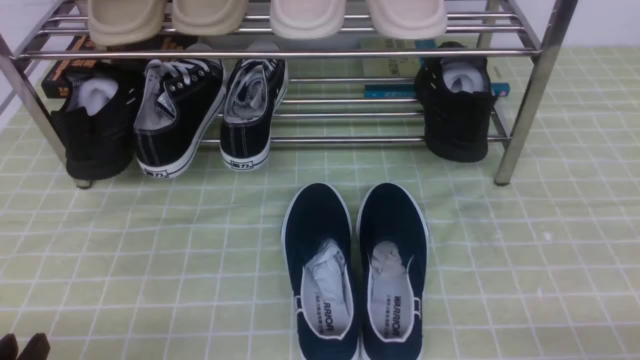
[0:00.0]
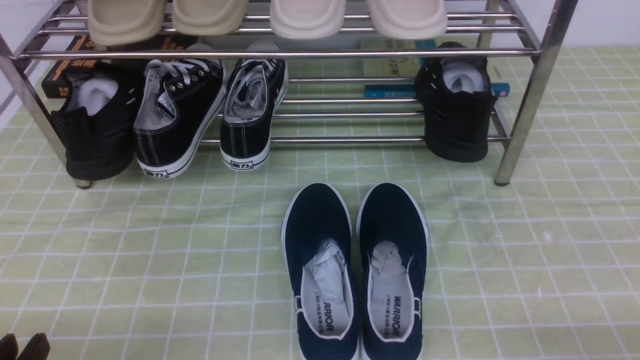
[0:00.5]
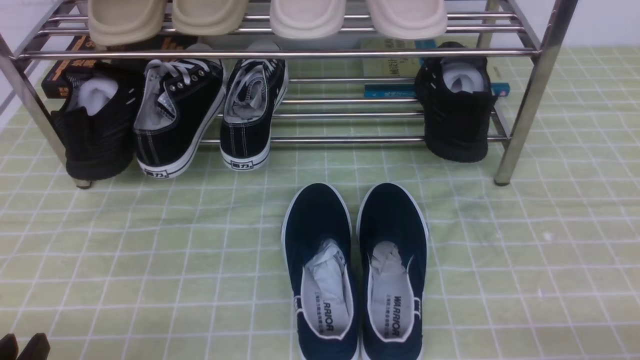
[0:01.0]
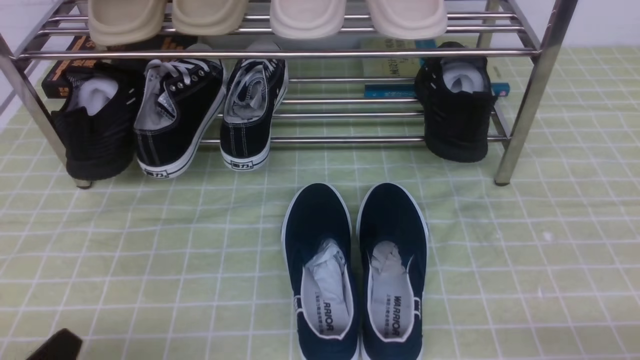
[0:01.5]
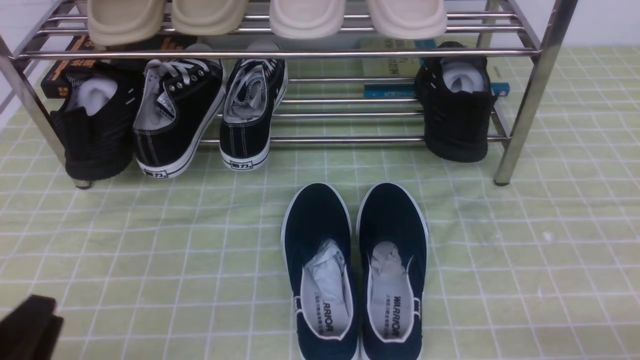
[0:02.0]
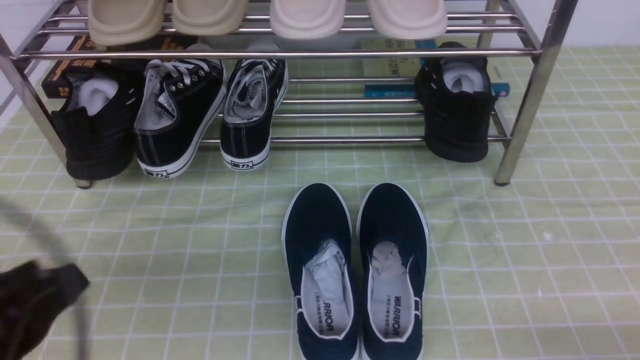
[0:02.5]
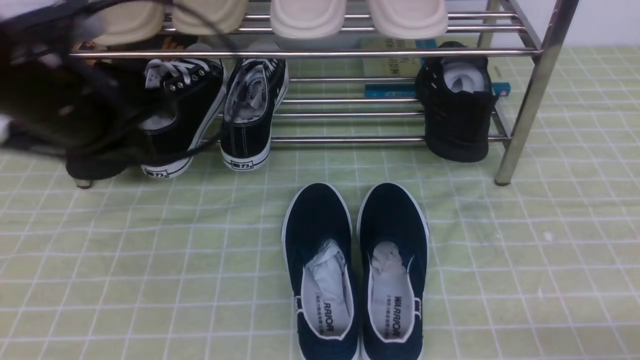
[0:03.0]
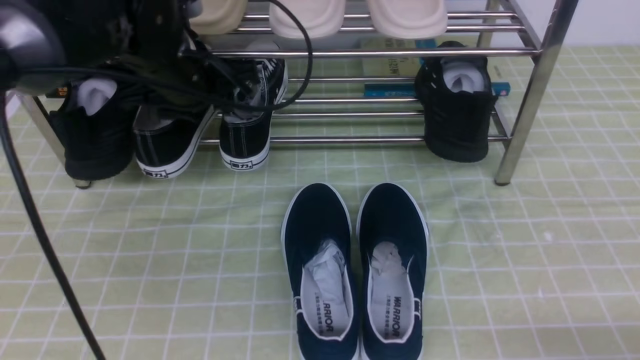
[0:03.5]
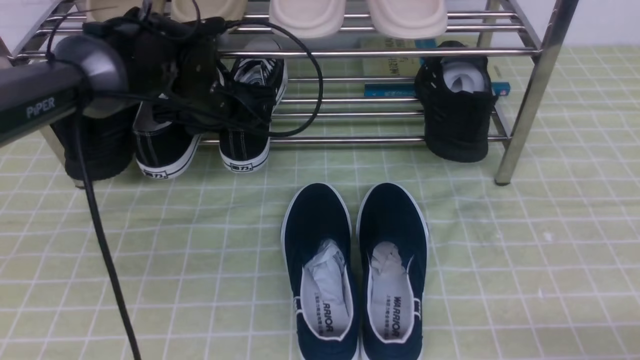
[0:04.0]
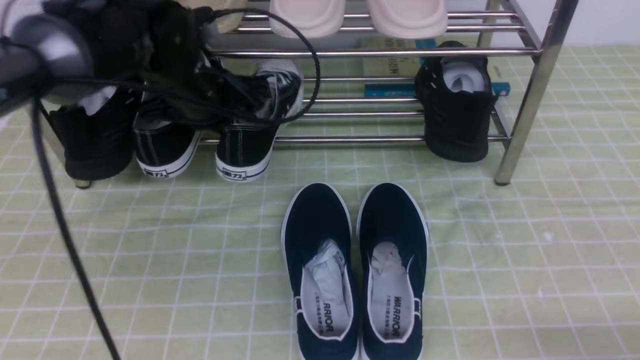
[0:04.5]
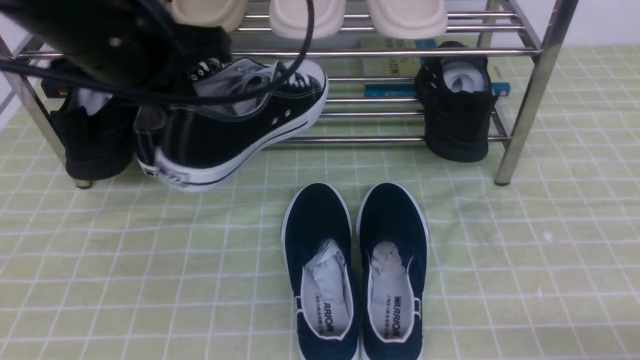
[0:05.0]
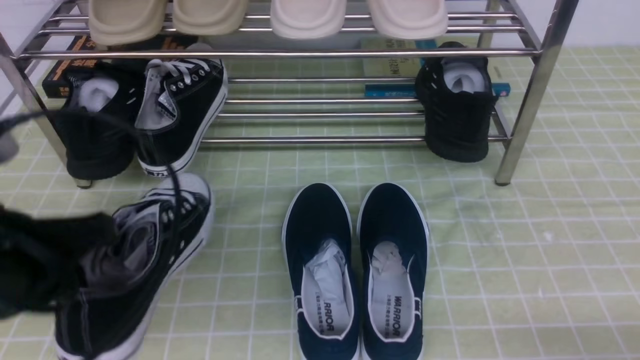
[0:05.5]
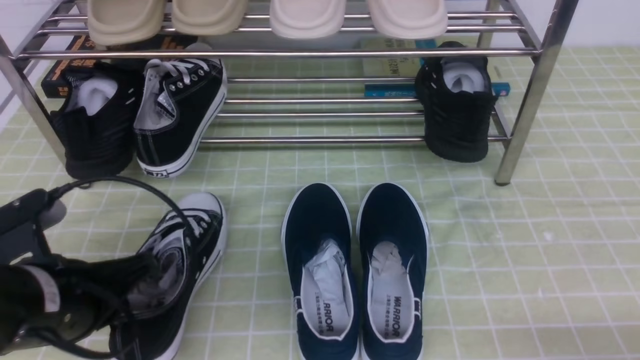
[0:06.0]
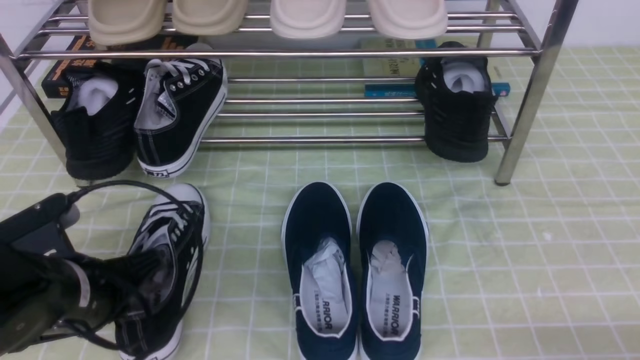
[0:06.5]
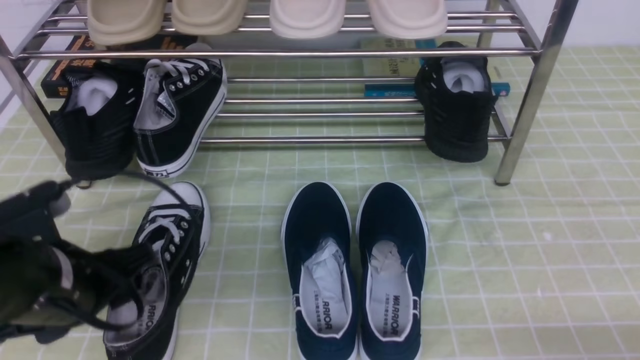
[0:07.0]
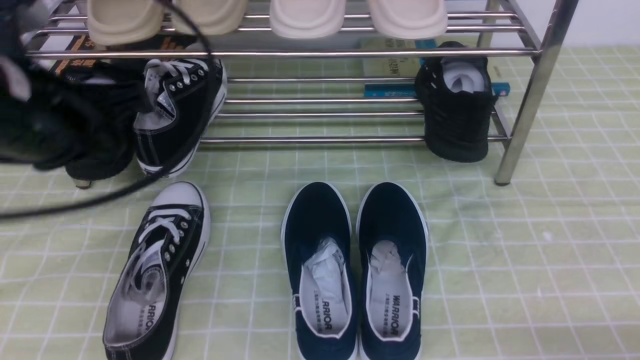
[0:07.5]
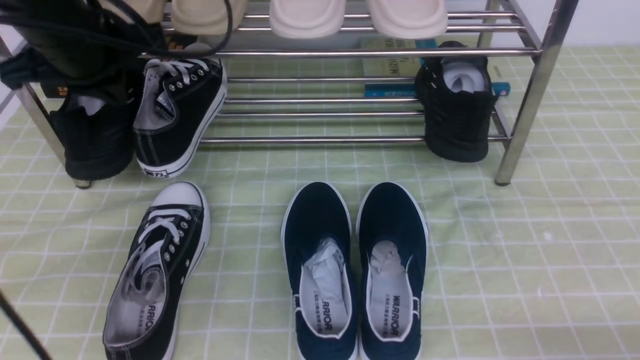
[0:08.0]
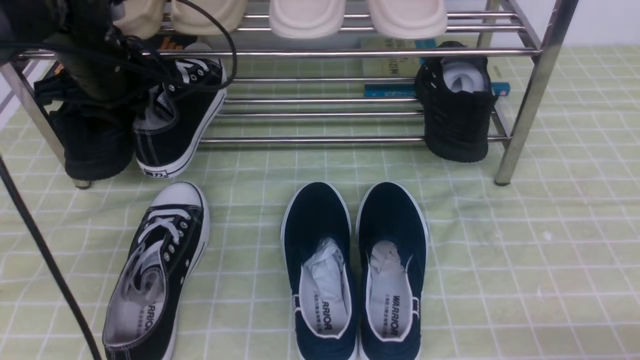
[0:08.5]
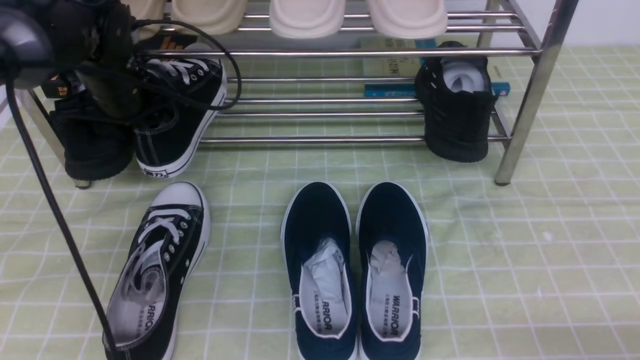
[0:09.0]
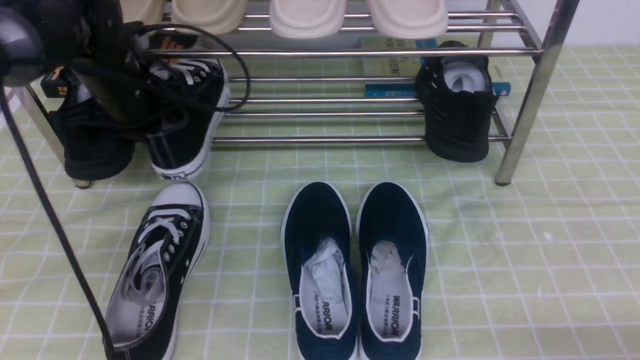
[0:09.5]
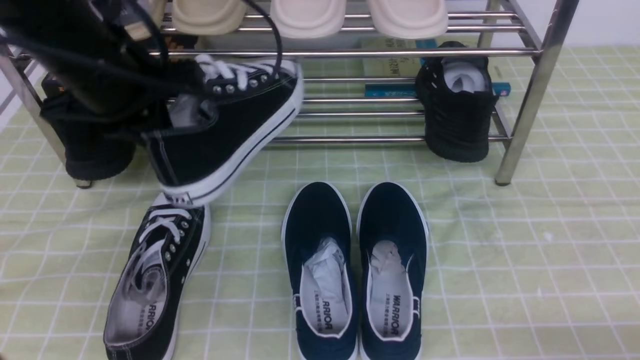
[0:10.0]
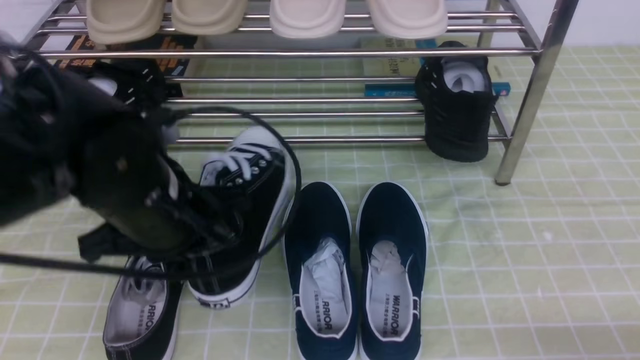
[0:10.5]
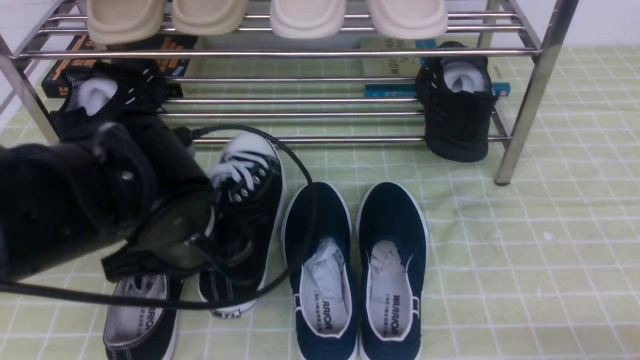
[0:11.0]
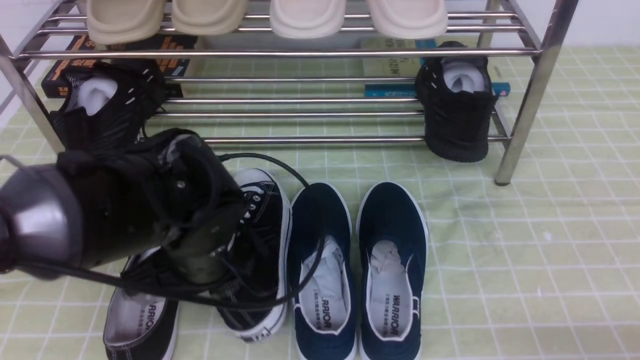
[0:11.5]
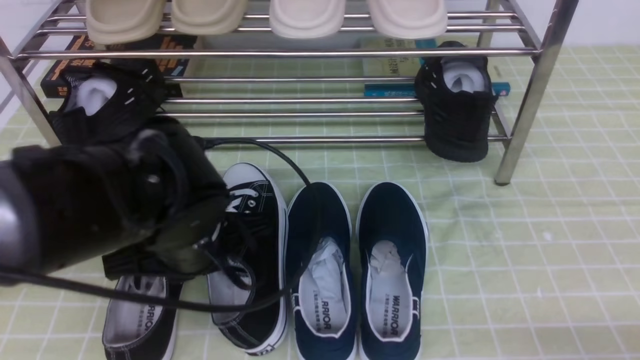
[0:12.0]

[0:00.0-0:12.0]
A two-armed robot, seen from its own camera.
Step, 0:00.0 to 0:04.0: use the left arm to clamp a shoe on the left side of the shoe rack.
Step, 0:04.5 to 0:07.0: Use your left arm to remove the clamped shoe from the shoe rack and put it down.
Step, 0:07.5 to 0:09.0: use the left arm to clamp a shoe on the left side of the shoe rack.
0:02.0 to 0:04.0: The left gripper moves forward, roughly 35 cm, and closes and opens again.
0:04.0 to 0:06.0: The left gripper moves backward, approximately 25 cm, and closes its fingers.
0:06.0 to 0:08.0: The left gripper moves forward and upward, roughly 20 cm, and opens, then closes again.
0:08.0 to 0:10.0: The left gripper opens, then closes again.
0:10.0 to 0:12.0: The left gripper shifts about 15 cm downward, backward and to the right.

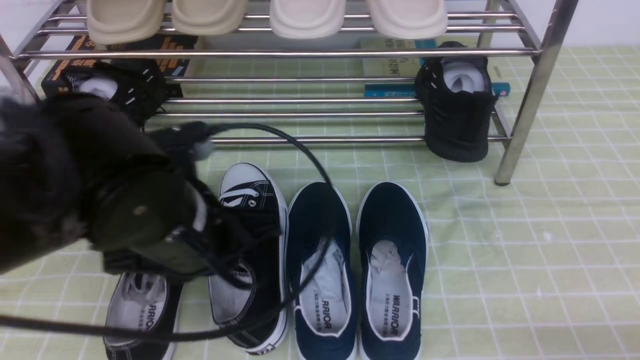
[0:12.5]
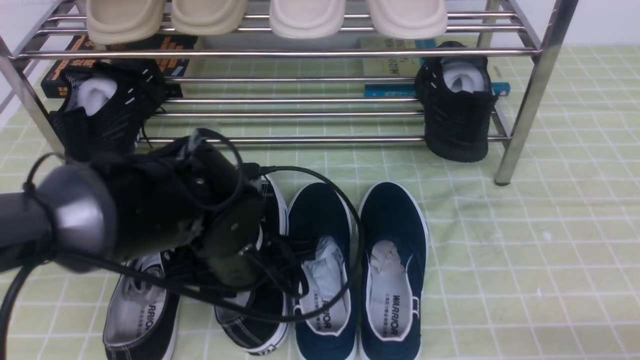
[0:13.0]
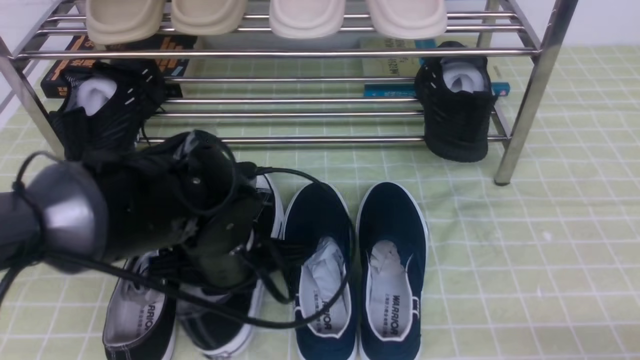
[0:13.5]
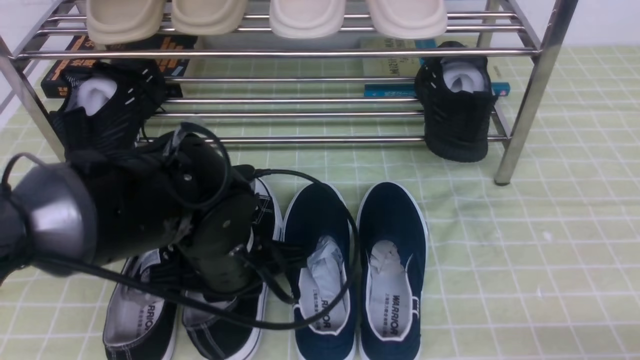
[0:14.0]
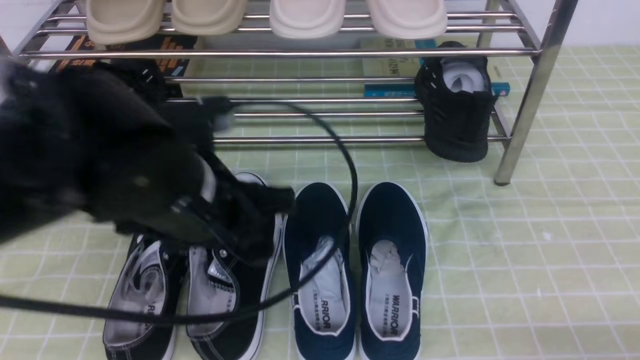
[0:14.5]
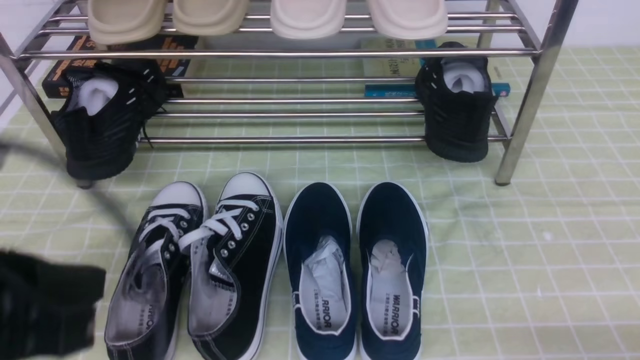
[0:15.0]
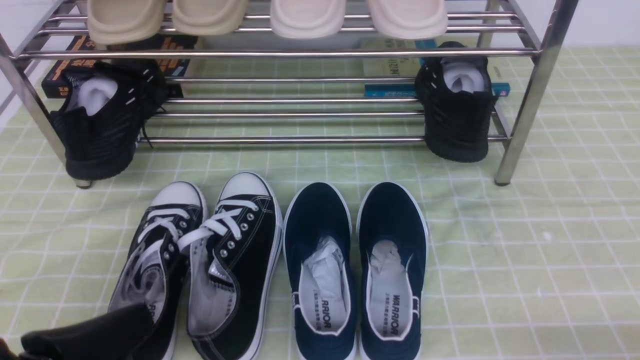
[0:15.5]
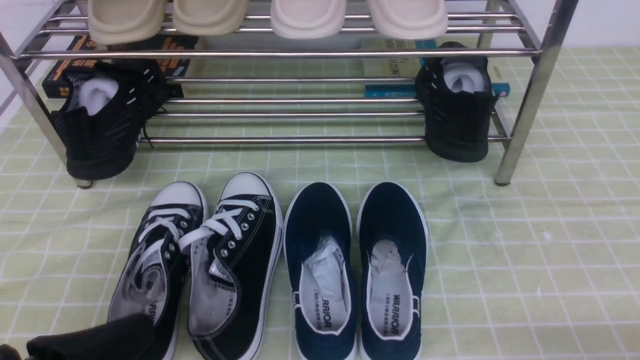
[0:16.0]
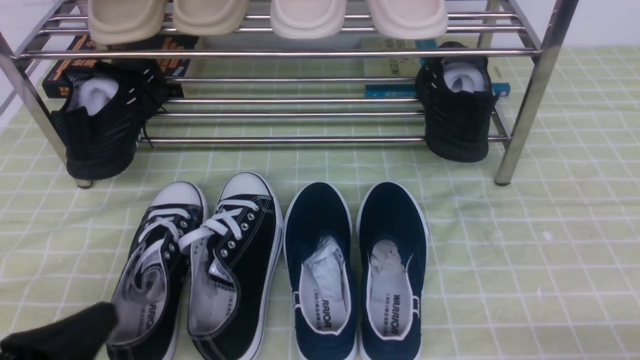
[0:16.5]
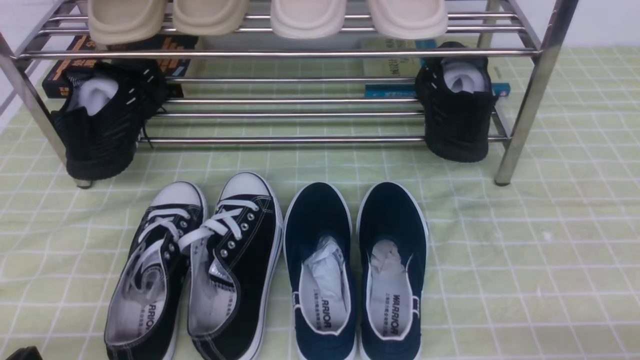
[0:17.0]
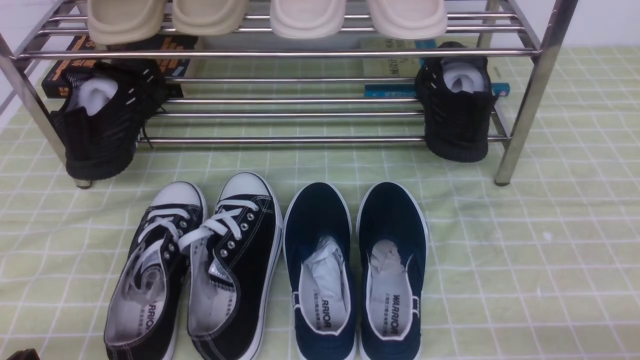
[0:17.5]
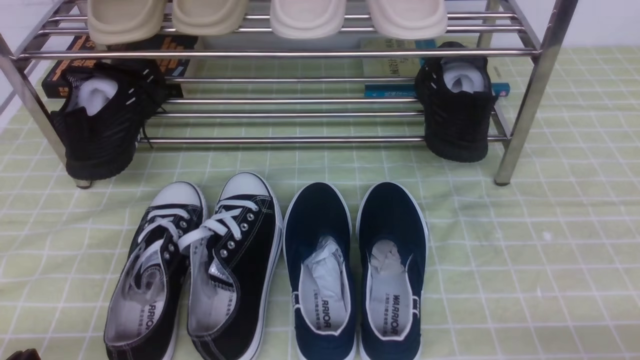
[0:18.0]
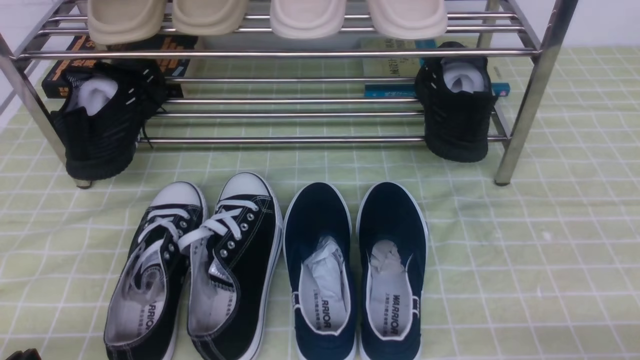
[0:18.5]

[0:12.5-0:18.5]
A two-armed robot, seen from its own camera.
Step, 0:12.5 to 0:14.5: Use your left arm to remove the clamped shoe from the shoe rack and put it down.
0:12.5 to 0:14.5: The left gripper closes, then reopens.
0:14.5 to 0:16.5: The left gripper shifts roughly 20 cm backward, to the left and downward, and closes its fingers.
0:16.5 to 0:18.5: The left gripper ends up approximately 5 cm from where it was.
